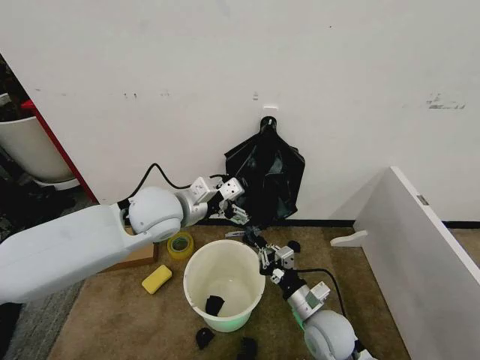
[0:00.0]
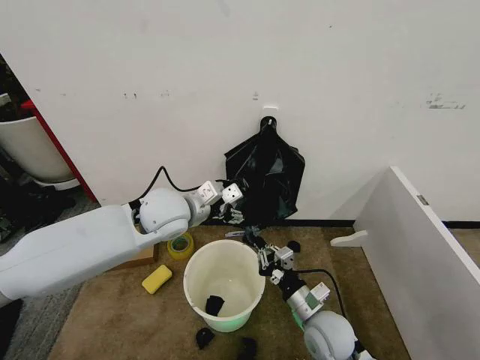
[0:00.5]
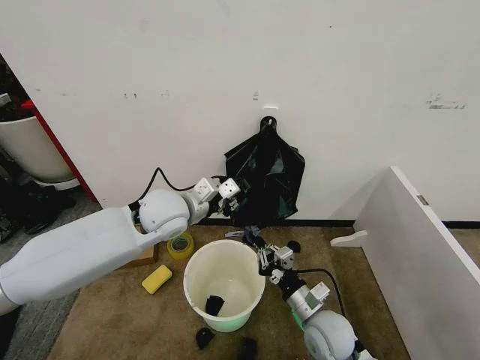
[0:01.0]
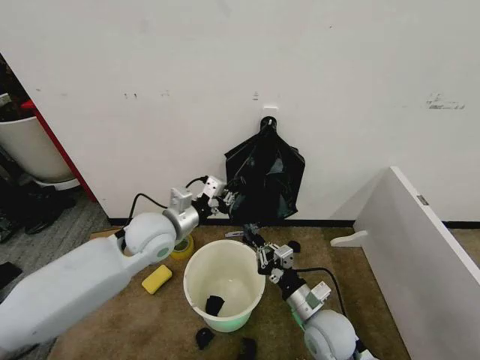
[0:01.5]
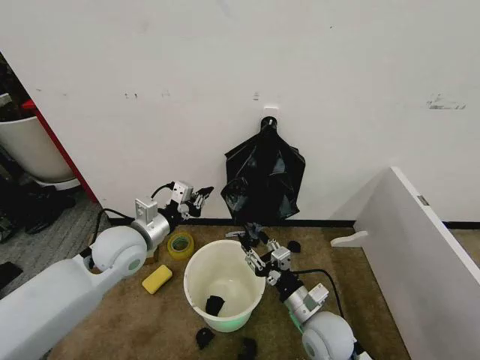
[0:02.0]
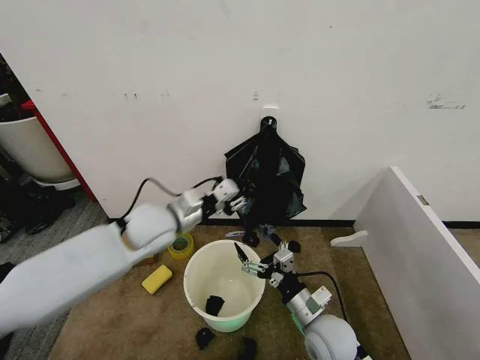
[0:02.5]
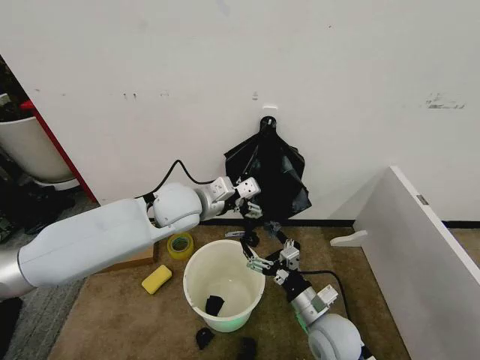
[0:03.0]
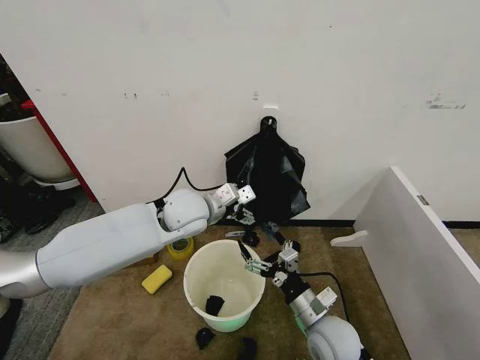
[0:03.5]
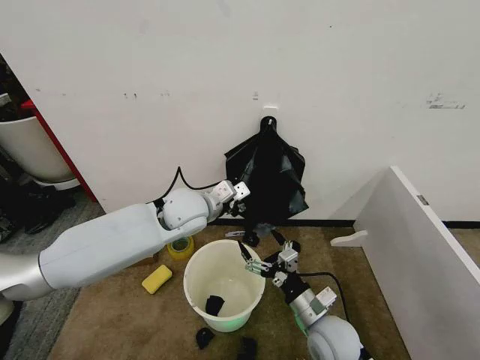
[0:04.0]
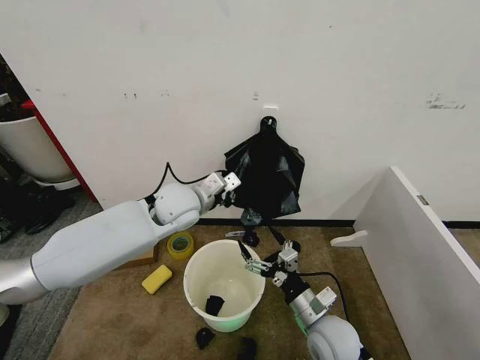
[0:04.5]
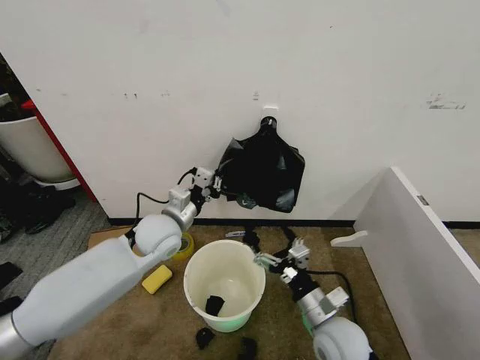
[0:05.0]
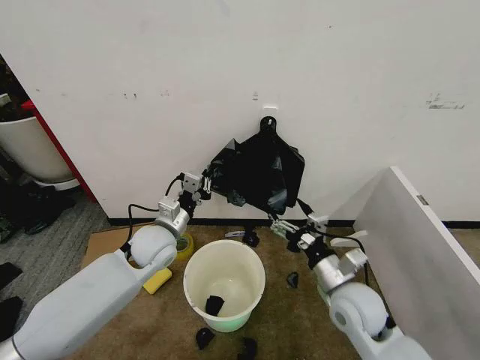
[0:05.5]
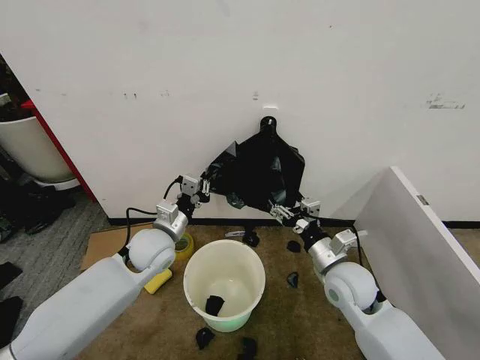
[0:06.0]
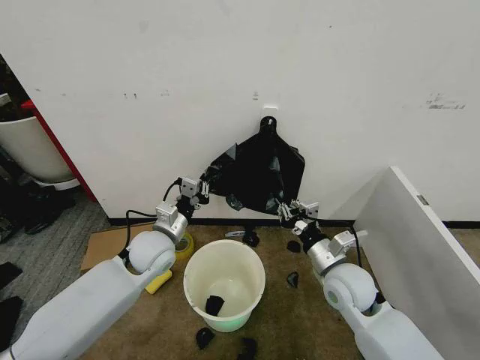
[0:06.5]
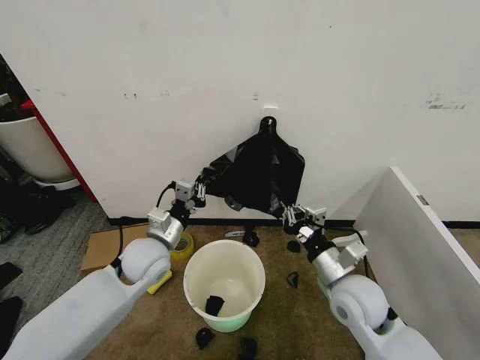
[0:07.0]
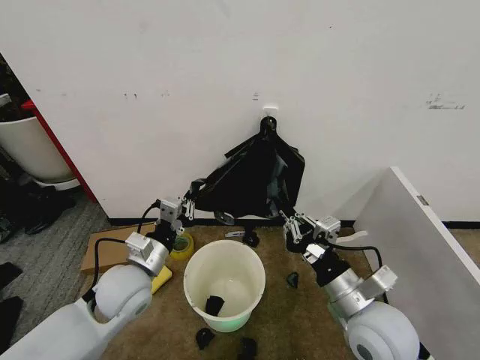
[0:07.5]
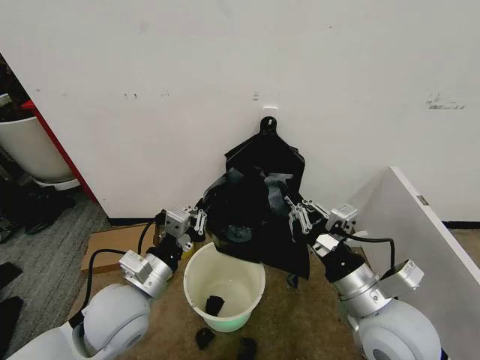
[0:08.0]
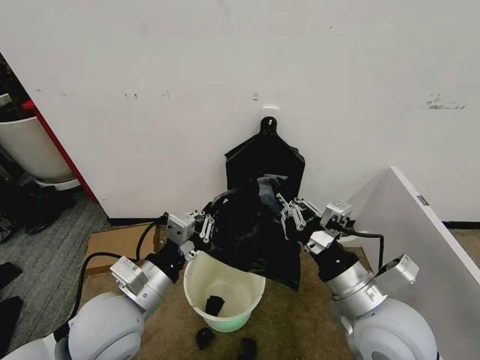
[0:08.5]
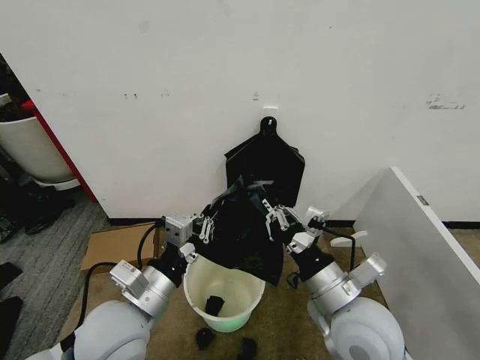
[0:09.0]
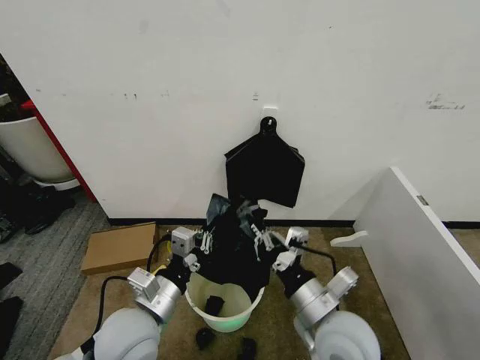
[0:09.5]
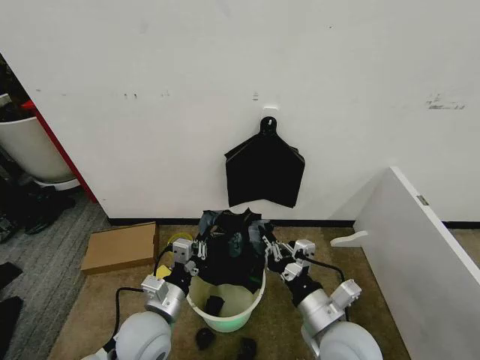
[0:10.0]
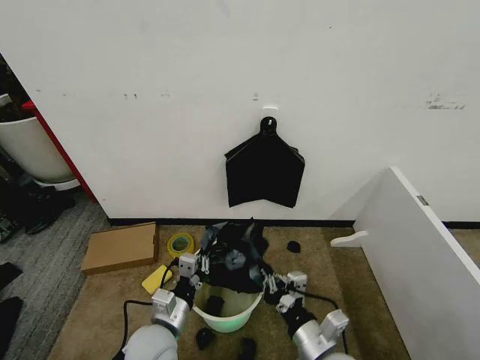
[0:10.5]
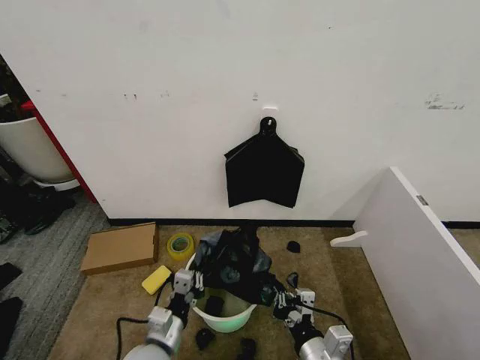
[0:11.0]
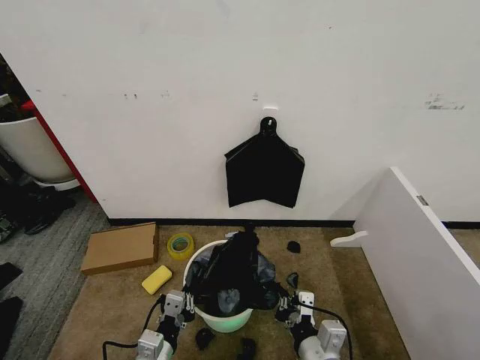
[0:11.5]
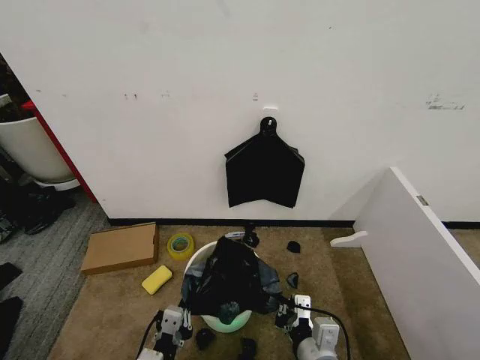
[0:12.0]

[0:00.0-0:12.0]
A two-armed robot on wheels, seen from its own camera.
Task of the whole recording: Place the garbage bag over the trash bin.
0.0 to 2.0 s: The right gripper opens, while the left gripper travels to the left and downward by some 10 cm, and closes up.
2.0 to 4.0 s: The right gripper opens; the left gripper goes roughly 15 cm to the right and forward, and opens, then closes again.
4.0 to 6.0 s: The left gripper goes approximately 10 cm downward and to the left. Meanwhile the right gripper is displaced forward and upward by roughly 10 cm.
6.0 to 8.0 s: The right gripper travels backward and upward by some 15 cm, and closes up; the left gripper shifts about 15 cm backward.
8.0 to 10.0 s: Both grippers travel together downward, some 10 cm.
10.0 to 12.0 s: The left gripper travels backward and downward by roughly 15 cm. The right gripper goes some 5 cm backward.

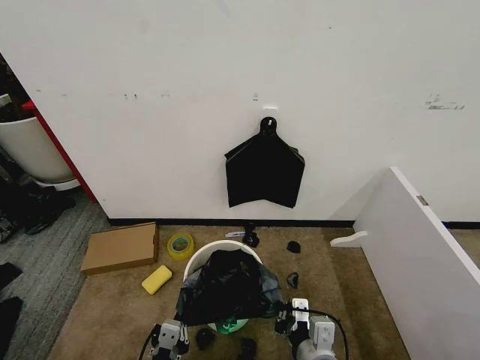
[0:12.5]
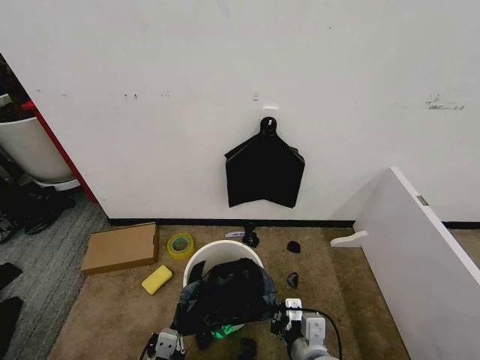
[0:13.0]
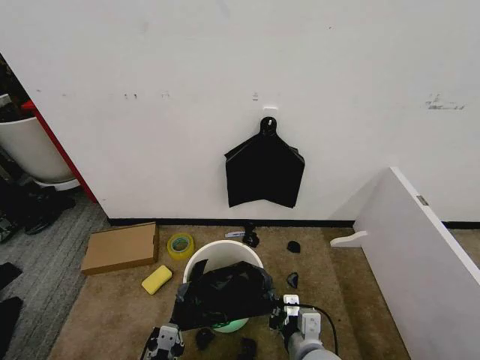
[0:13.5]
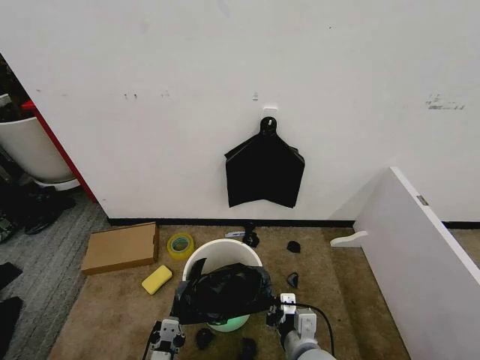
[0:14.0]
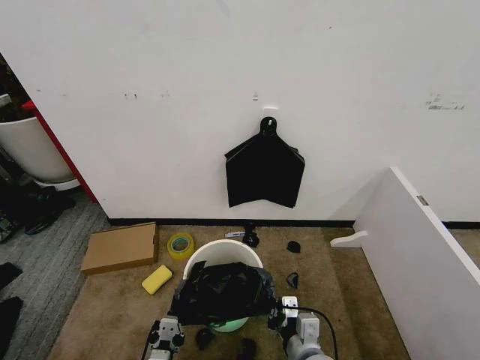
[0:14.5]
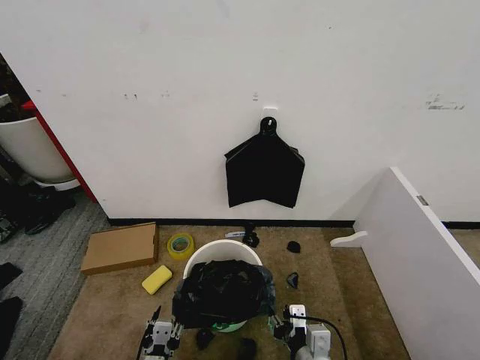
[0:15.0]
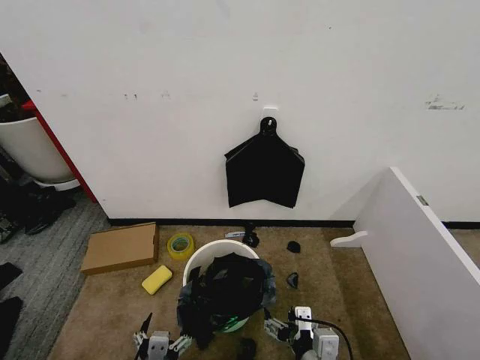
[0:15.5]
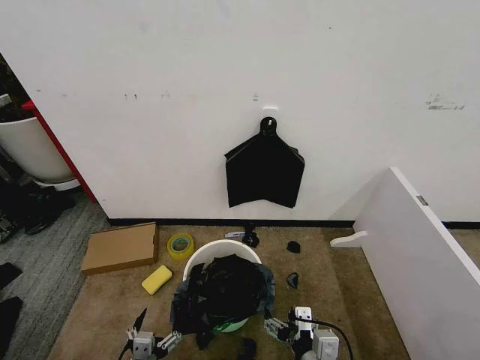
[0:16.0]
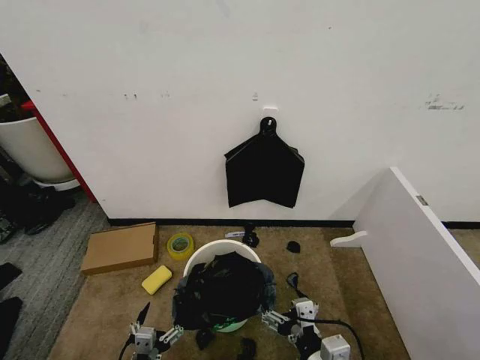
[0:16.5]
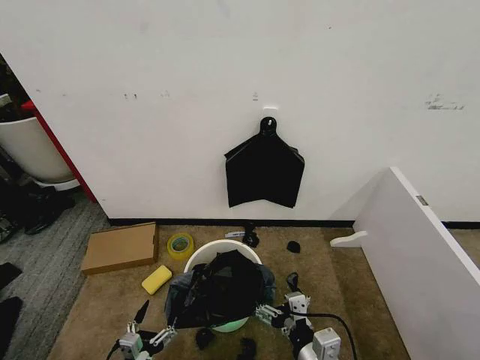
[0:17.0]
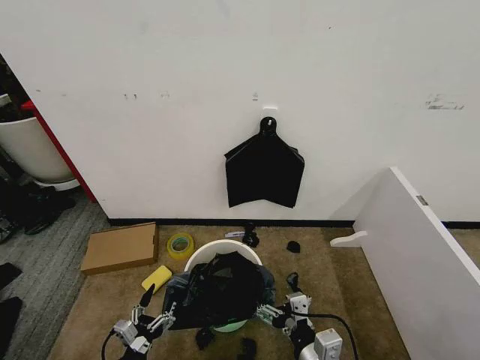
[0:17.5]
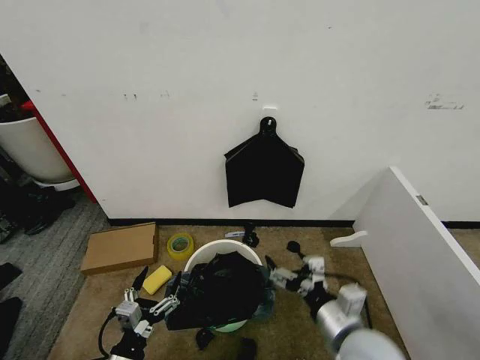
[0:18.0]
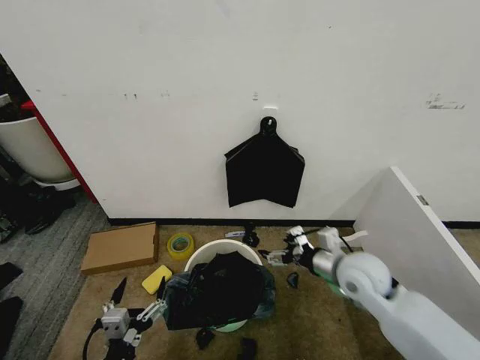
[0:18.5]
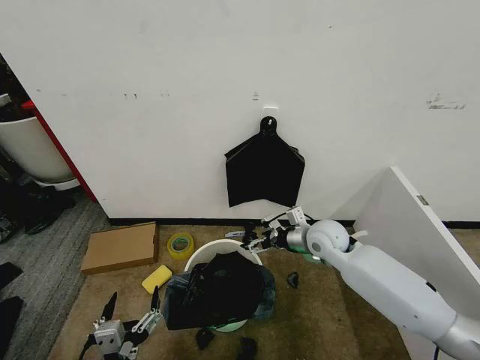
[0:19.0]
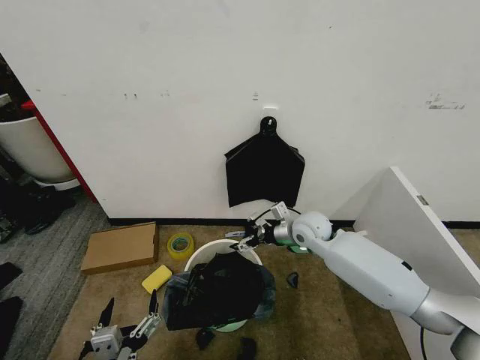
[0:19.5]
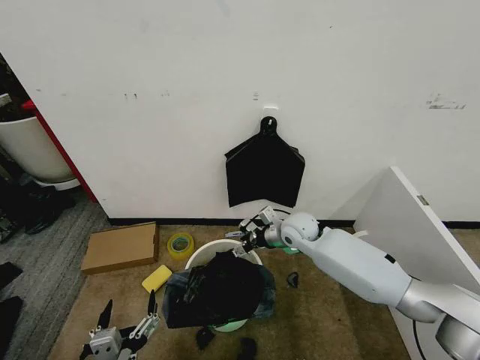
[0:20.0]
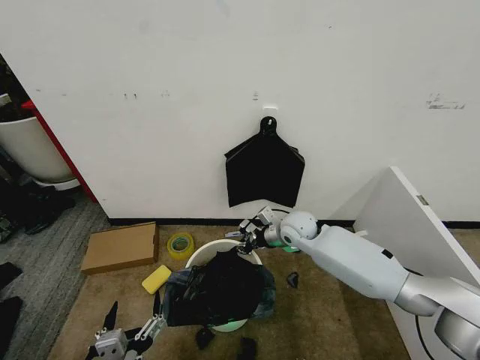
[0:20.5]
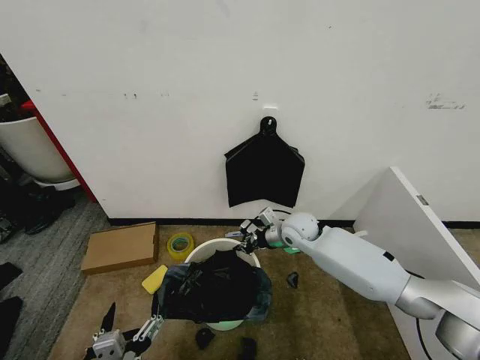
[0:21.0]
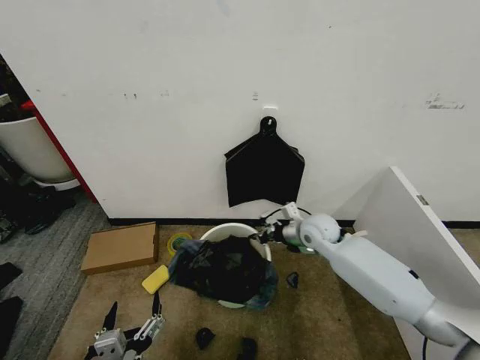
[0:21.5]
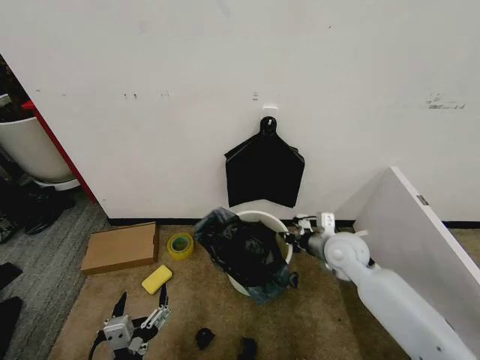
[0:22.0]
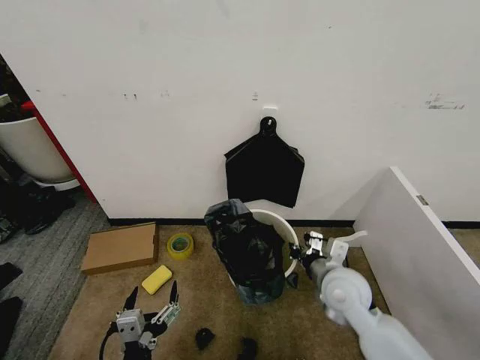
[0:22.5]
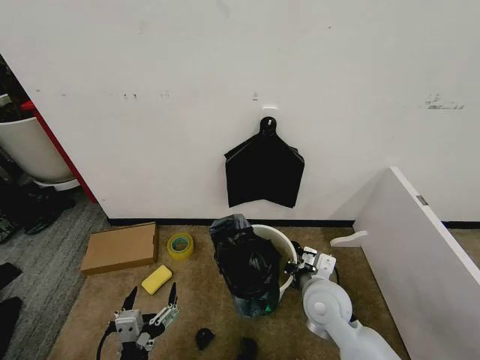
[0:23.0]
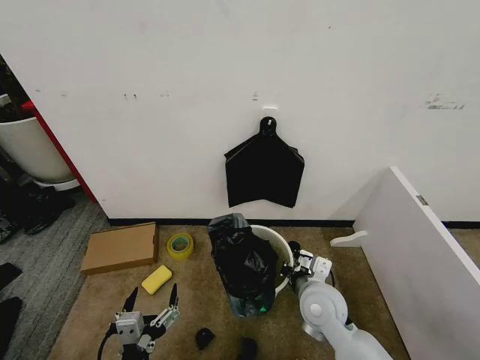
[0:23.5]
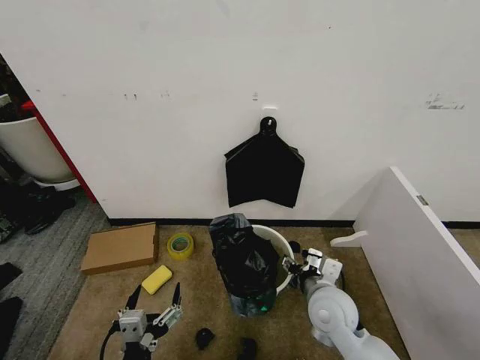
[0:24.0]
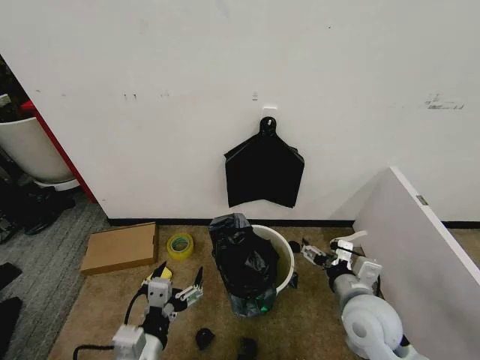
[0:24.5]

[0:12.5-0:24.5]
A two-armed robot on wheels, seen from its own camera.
Task of the whole recording: Place the garbage bag over the trash bin.
12.5 to 14.5 s: The left gripper heads downward, covering approximately 5 cm.
14.5 to 16.5 s: The left gripper travels to the left by about 5 cm, and opens its fingers, while the right gripper goes roughly 5 cm backward, and opens.
16.5 to 18.5 s: The left gripper is displaced upward by approximately 10 cm. Meanwhile the right gripper goes approximately 20 cm forward.
18.5 to 20.5 s: The right gripper is displaced forward and to the left by approximately 20 cm, and closes its fingers. Meanwhile the left gripper changes place by roughly 5 cm.
20.5 to 22.5 s: The right gripper heads backward, covering some 20 cm.
22.5 to 24.5 s: The left gripper goes roughly 5 cm forward; the right gripper shifts roughly 5 cm backward, and opens.

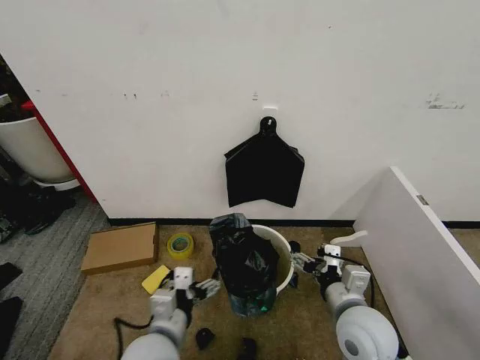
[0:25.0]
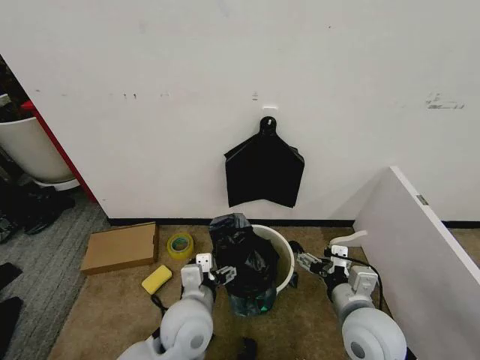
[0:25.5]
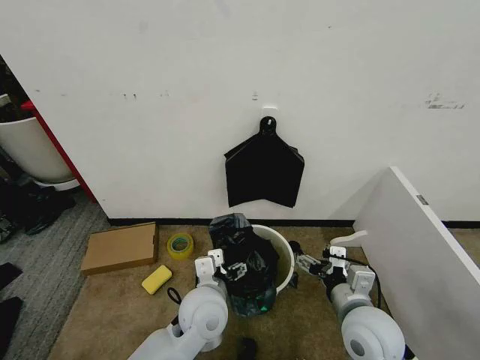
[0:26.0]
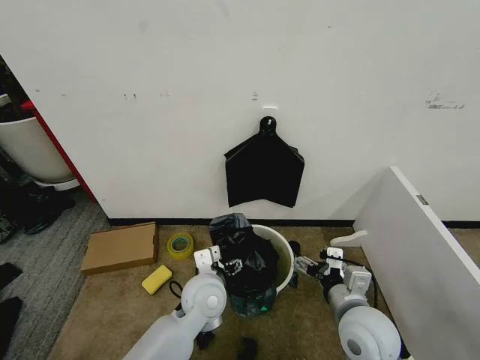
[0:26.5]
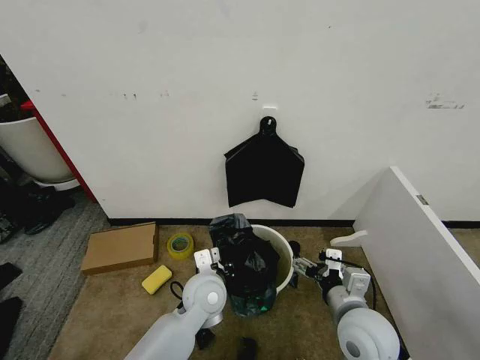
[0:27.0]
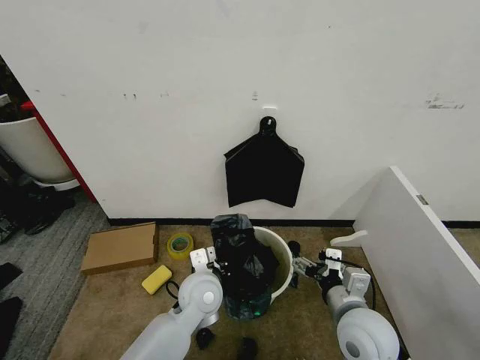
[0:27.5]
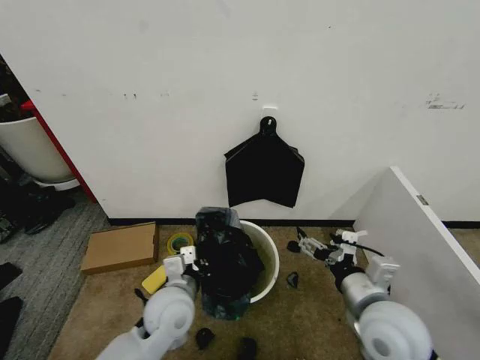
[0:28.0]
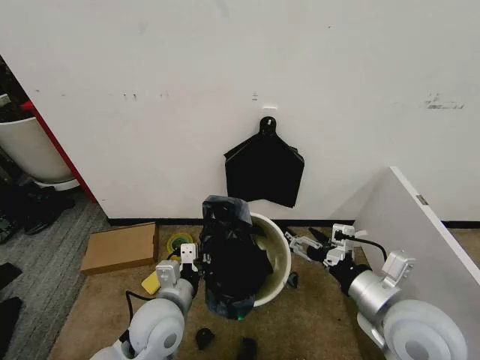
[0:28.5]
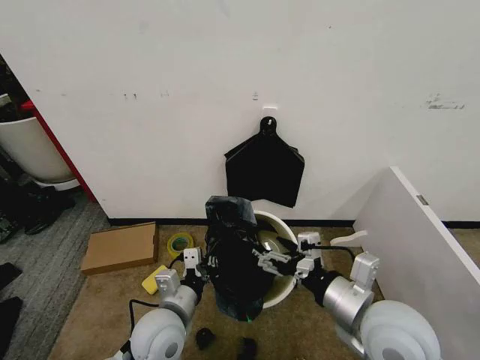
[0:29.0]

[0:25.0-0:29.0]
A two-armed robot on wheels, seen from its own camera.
Task of the whole recording: Place the garbage bag over the trash bin.
25.0 to 27.0 s: The left gripper shifts approximately 15 cm forward and to the right, and closes its fingers.
27.0 to 29.0 s: The right gripper is displaced upward by some 10 cm; the left gripper heads backward and to the left, covering some 10 cm.
